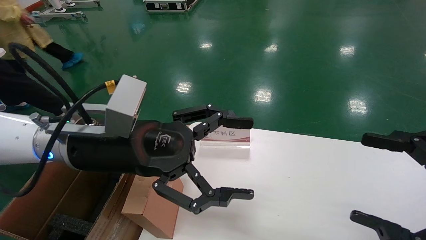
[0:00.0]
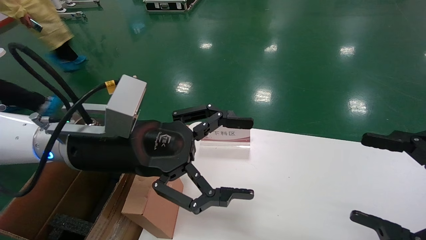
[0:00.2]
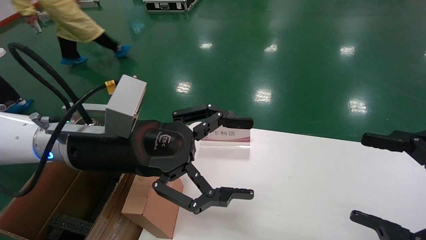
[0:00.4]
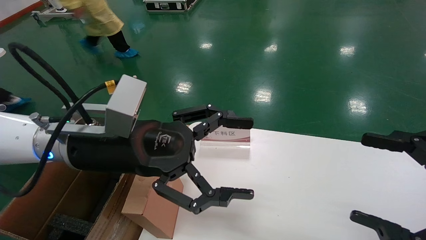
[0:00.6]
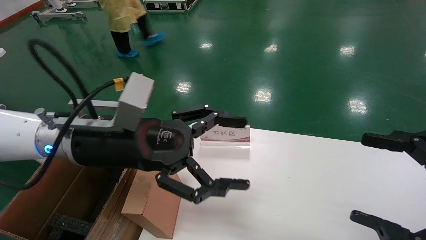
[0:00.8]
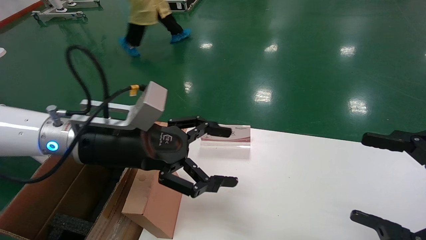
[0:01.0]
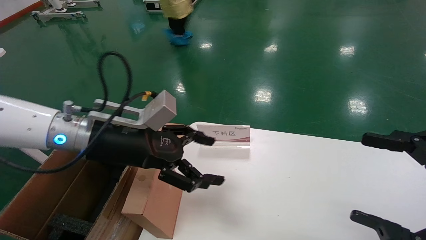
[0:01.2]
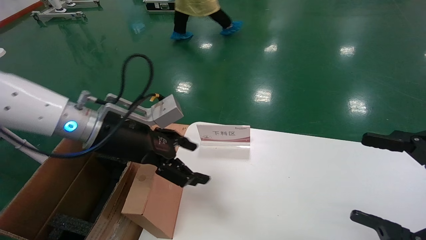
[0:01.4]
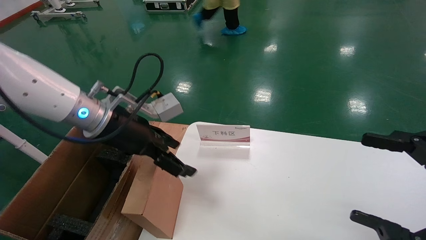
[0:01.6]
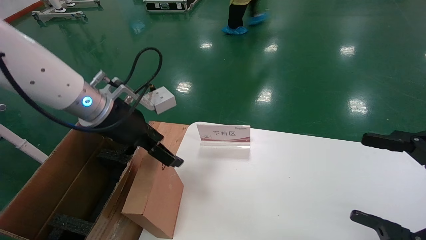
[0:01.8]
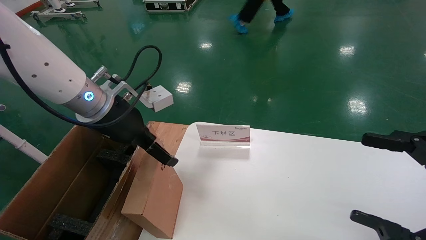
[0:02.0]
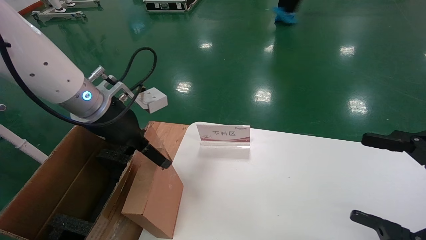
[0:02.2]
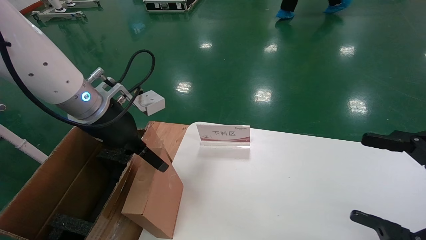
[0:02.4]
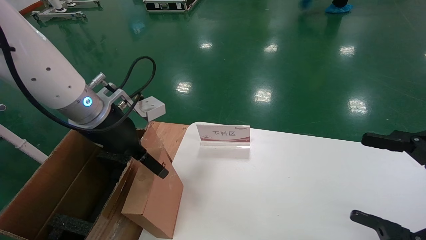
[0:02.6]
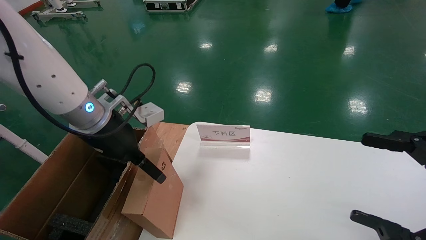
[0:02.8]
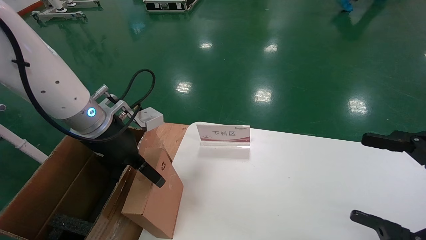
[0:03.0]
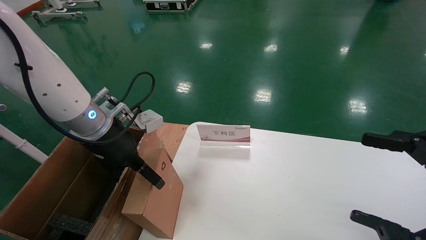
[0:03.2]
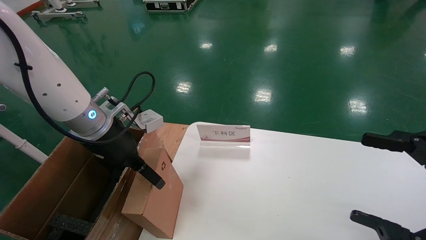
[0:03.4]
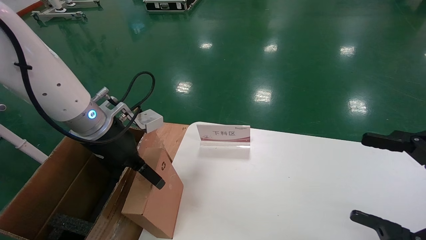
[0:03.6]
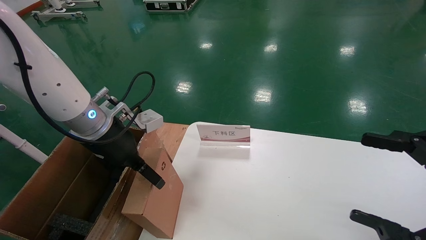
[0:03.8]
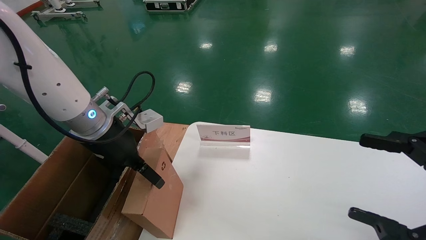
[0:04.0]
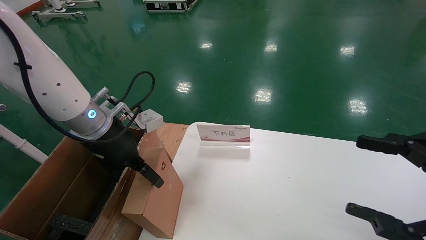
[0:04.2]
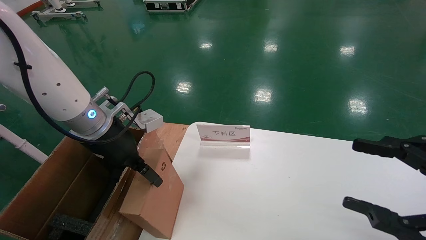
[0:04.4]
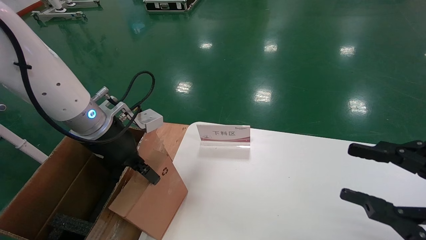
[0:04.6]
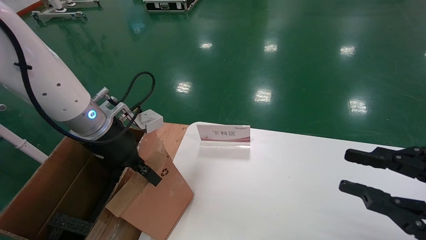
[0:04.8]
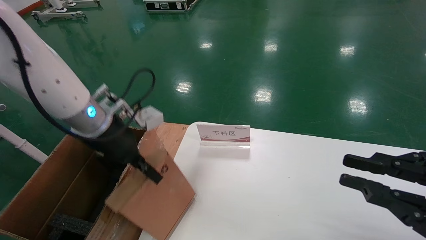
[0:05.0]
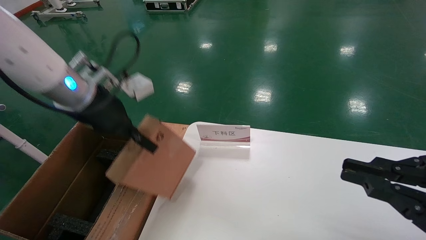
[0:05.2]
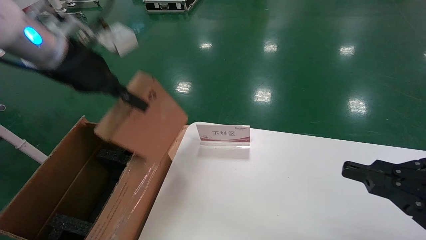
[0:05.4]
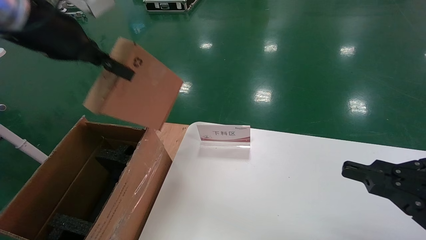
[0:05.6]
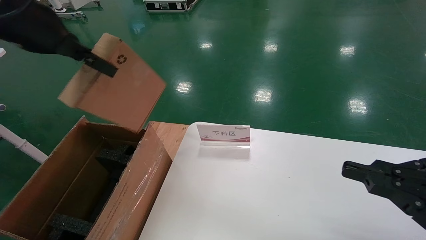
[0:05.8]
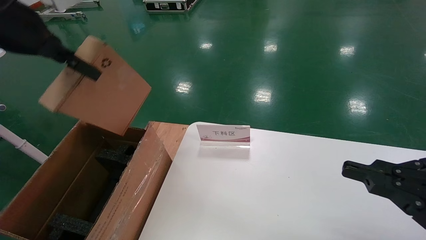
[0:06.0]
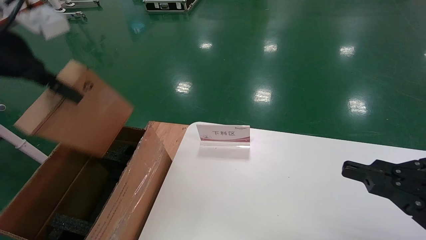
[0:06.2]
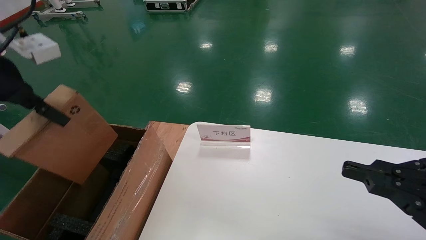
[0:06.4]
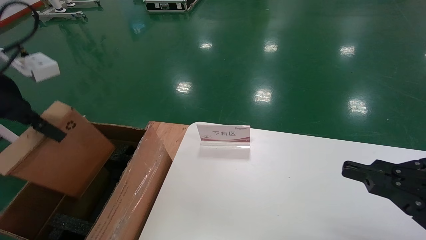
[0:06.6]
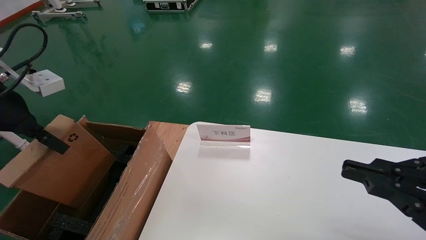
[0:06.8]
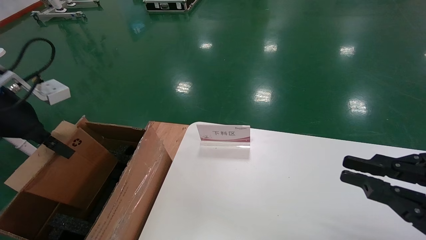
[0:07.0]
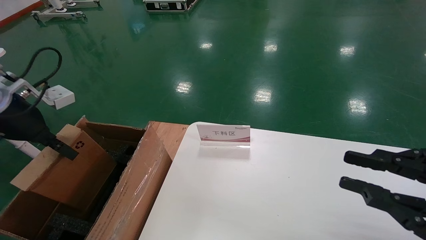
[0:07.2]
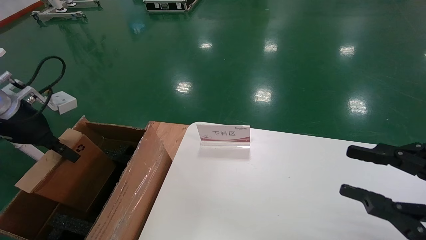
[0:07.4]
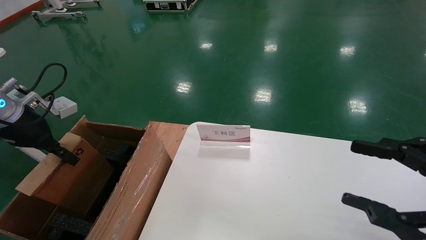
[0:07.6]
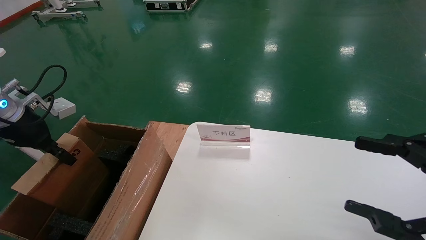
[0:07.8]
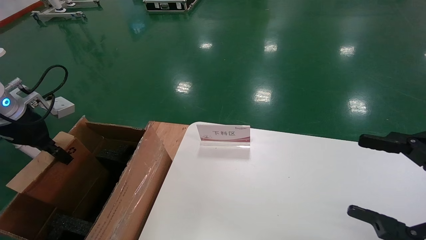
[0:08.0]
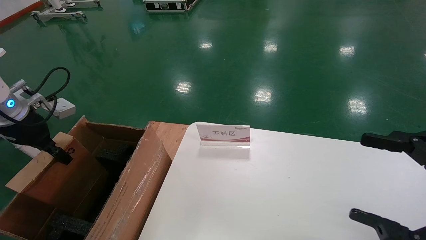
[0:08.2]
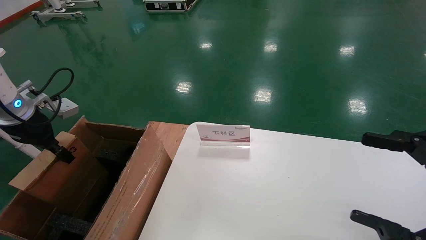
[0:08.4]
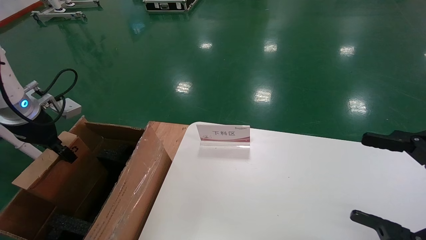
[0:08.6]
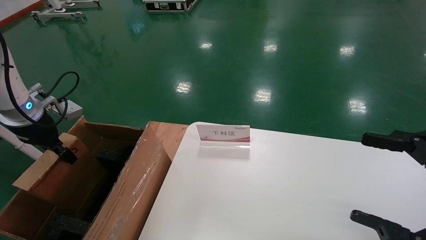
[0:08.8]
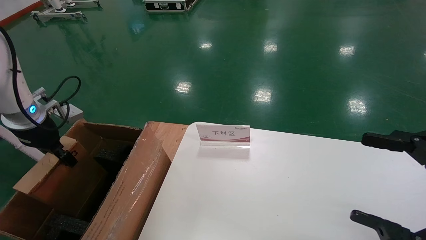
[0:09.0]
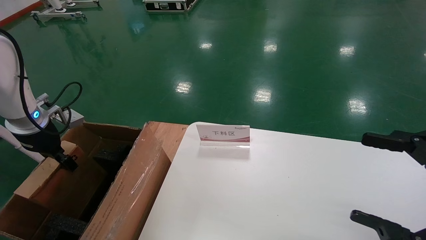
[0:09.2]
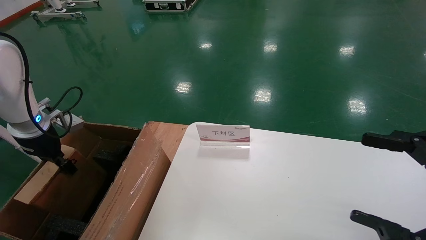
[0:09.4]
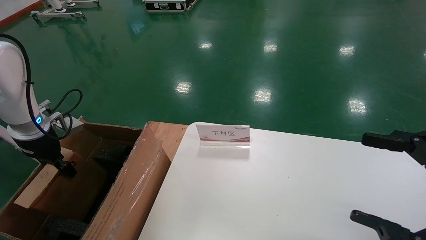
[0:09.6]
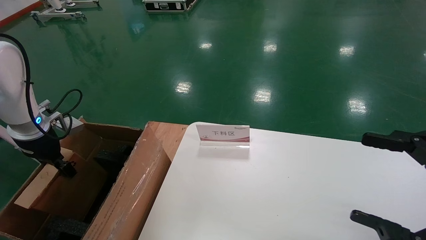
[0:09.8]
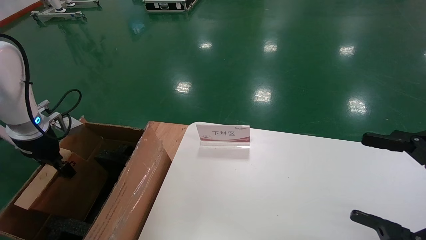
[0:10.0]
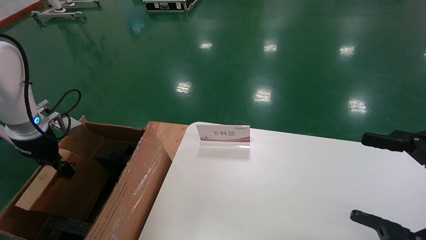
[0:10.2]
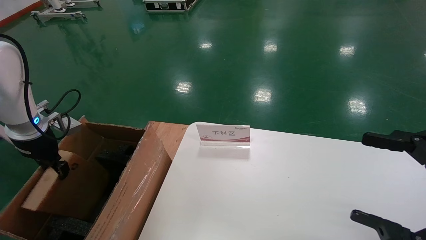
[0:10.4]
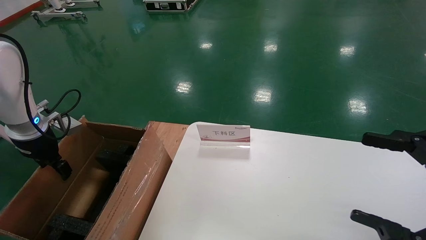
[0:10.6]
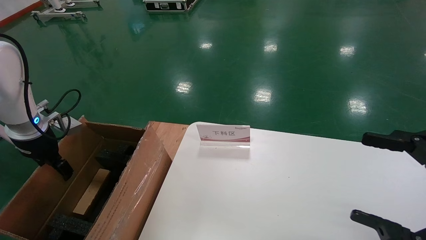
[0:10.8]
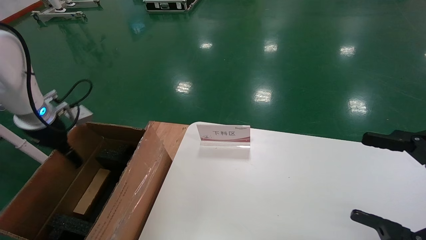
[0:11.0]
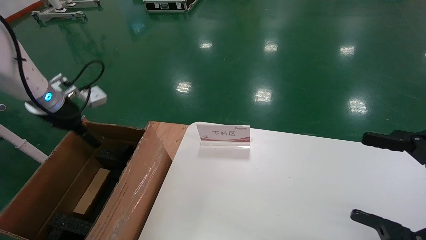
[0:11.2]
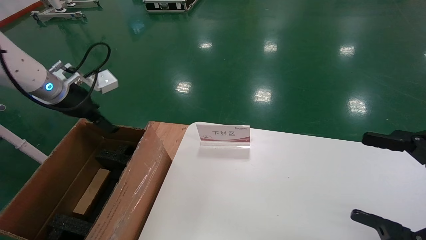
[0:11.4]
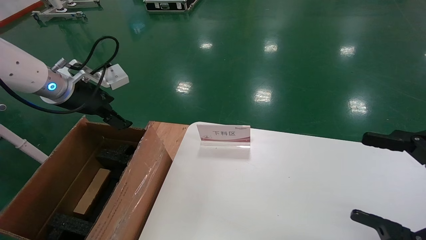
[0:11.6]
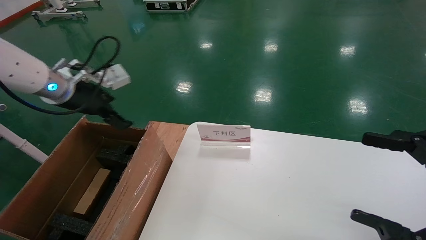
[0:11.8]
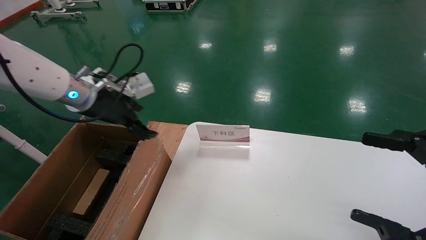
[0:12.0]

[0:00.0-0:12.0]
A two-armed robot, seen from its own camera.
Task of the whole recording: pick up the small cardboard box and load it into the large cardboard box.
Step, 0:01.0 to 0:05.6: Pick up the mouse and power cord box.
Step, 0:05.8 to 0:11.2: Place the mouse and power cord box into the case.
0:00.0 to 0:01.6: The left gripper moves forward, roughly 5 cm.
0:03.0 to 0:04.4: Both grippers stay about where they are.
0:04.4 to 0:06.0: The right gripper closes its fingers. The left gripper travels upward and to the left by some 20 cm, and closes up.
0:06.0 to 0:07.6: The left gripper is displaced downward and to the left by about 20 cm. The right gripper opens up.
0:07.6 to 0:09.0: The right gripper opens up. The left gripper shifts by roughly 5 cm.
0:09.0 to 0:10.4: The grippers move only a little.
0:10.4 to 0:12.0: The left gripper is displaced to the right and upward by roughly 15 cm, and opens.

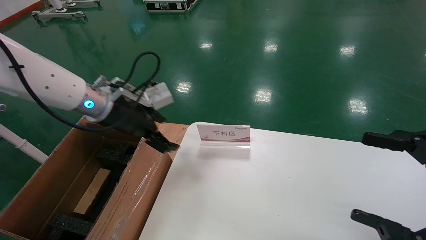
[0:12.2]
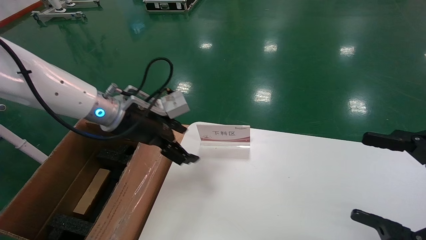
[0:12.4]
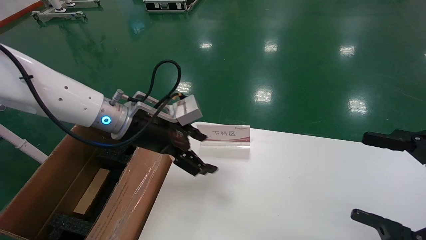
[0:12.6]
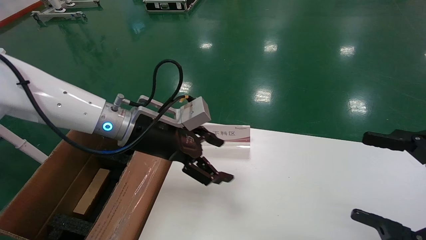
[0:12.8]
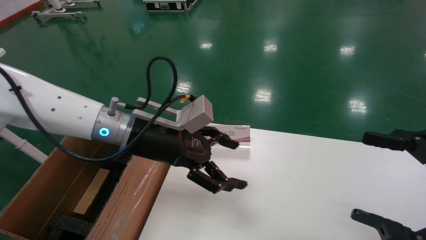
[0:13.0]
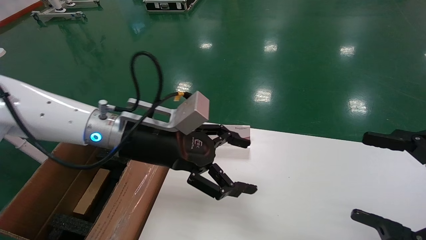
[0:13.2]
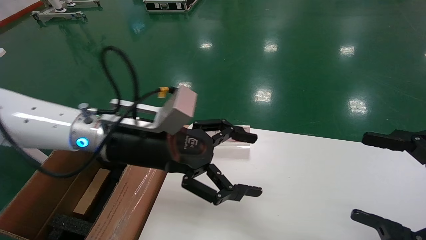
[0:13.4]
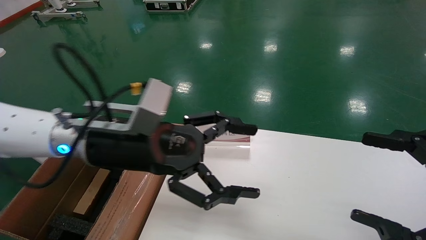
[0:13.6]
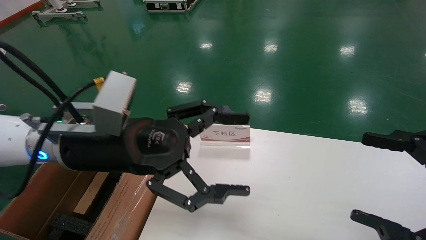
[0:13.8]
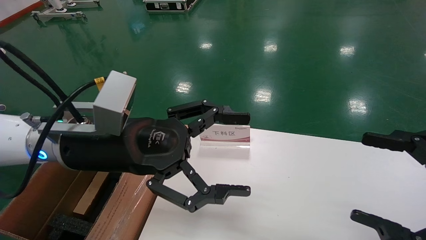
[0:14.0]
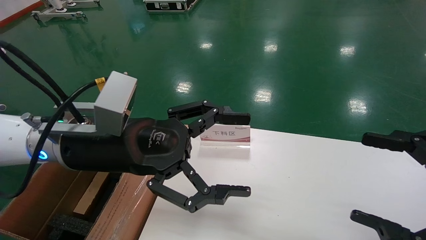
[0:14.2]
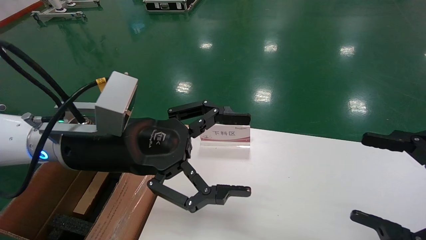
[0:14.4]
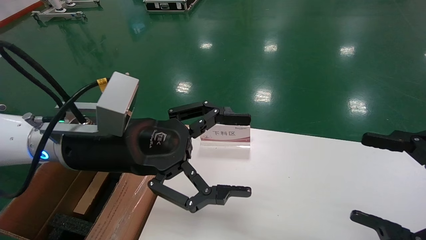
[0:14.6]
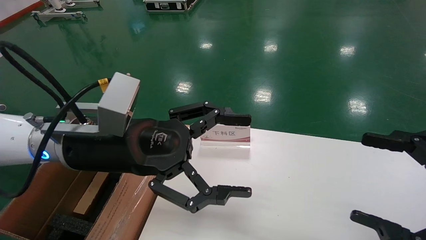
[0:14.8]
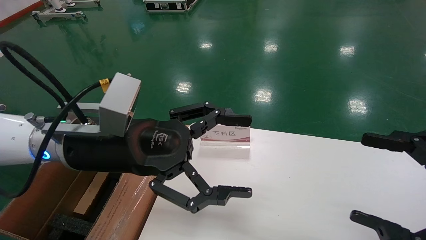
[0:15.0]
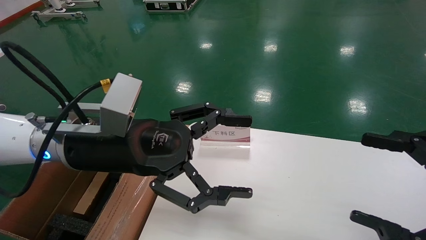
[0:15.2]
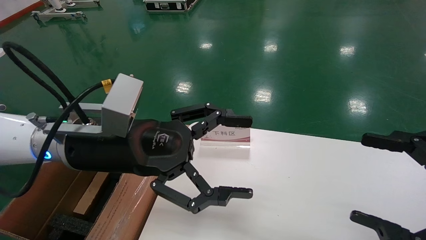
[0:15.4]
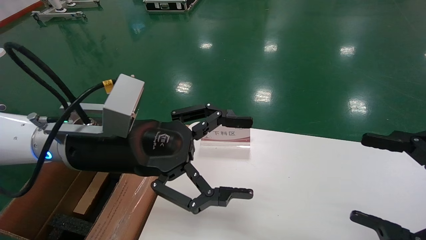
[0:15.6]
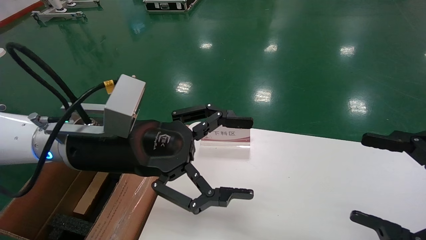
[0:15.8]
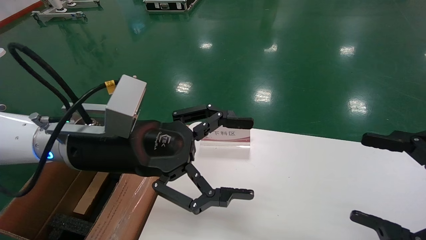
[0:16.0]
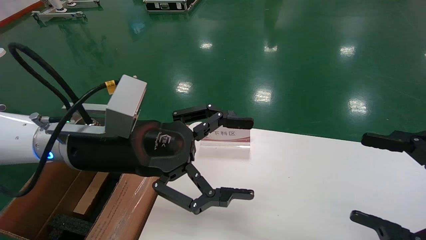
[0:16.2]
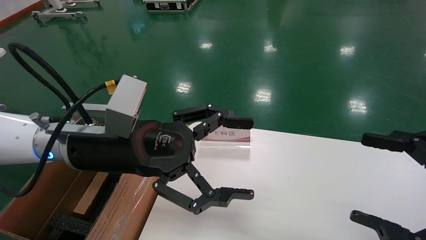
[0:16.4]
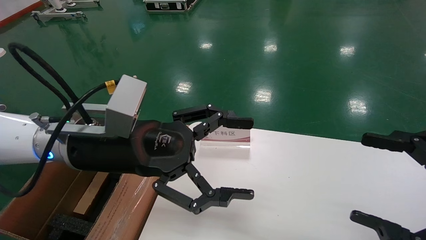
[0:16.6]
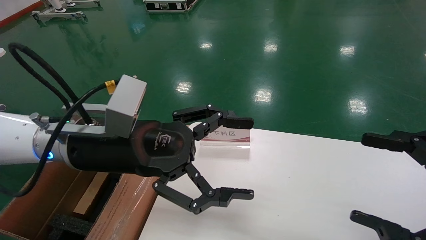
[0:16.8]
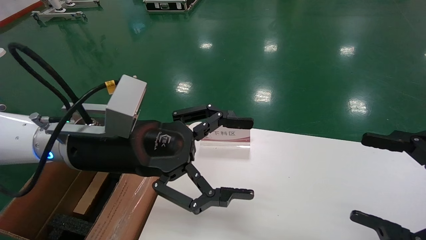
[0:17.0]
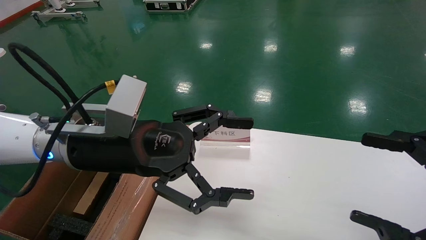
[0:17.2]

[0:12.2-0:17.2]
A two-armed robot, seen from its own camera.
Task of the whole recording: pick up the small cardboard box and load it into the large cardboard box.
0:12.2 to 0:13.8: The left gripper heads backward and to the right, covering some 15 cm.
0:13.8 to 0:17.2: Both grippers stay about where they are.
